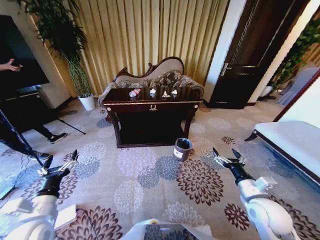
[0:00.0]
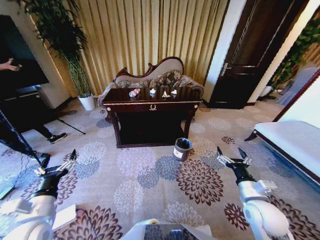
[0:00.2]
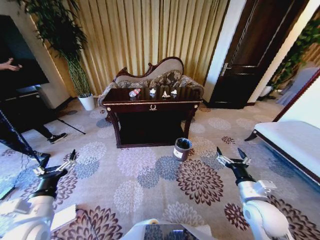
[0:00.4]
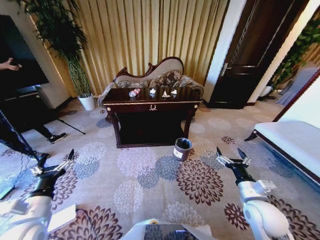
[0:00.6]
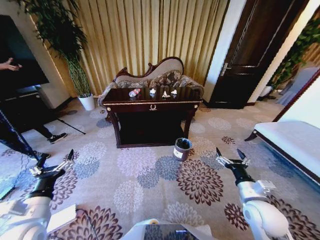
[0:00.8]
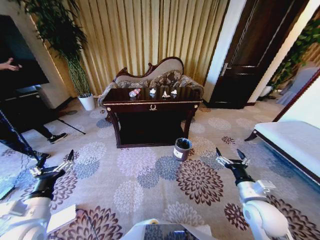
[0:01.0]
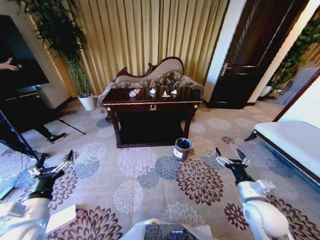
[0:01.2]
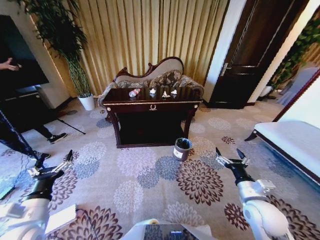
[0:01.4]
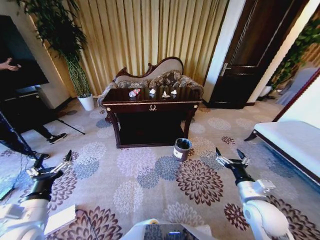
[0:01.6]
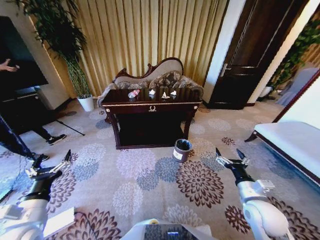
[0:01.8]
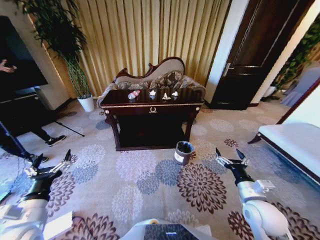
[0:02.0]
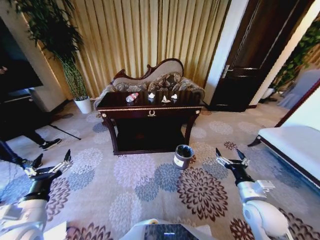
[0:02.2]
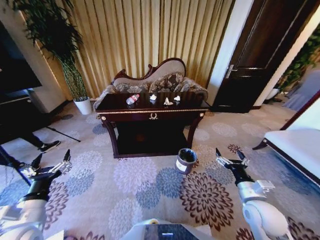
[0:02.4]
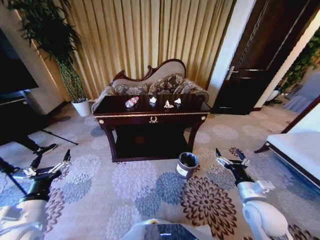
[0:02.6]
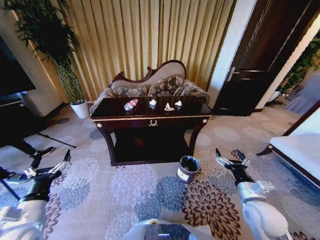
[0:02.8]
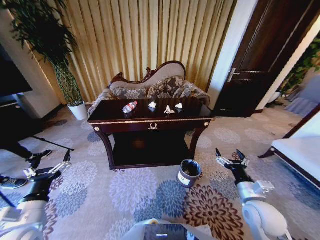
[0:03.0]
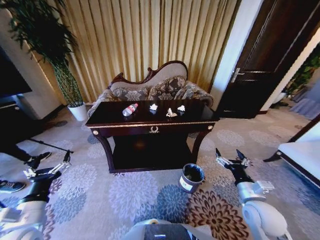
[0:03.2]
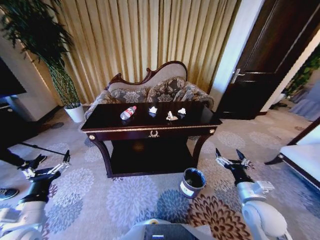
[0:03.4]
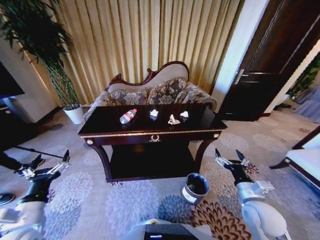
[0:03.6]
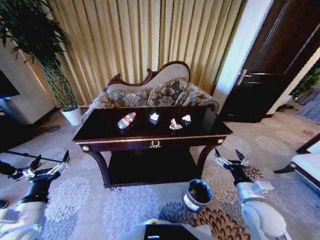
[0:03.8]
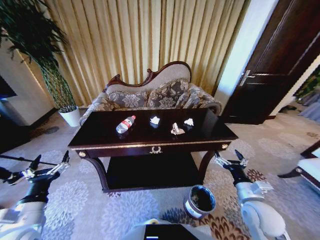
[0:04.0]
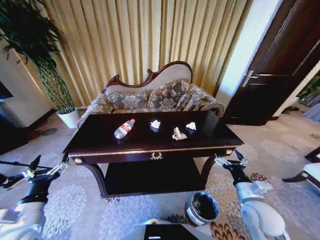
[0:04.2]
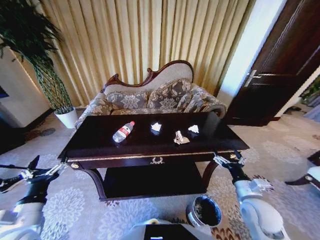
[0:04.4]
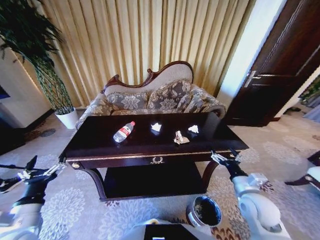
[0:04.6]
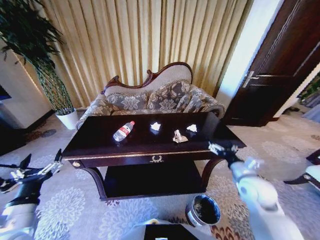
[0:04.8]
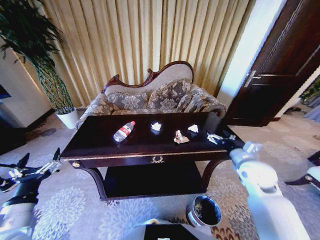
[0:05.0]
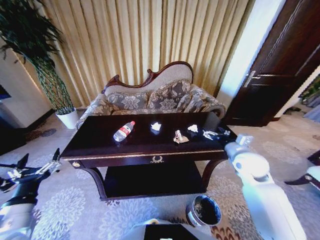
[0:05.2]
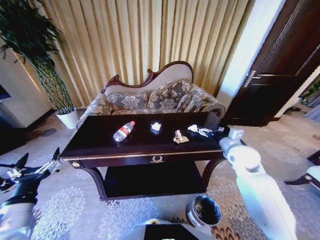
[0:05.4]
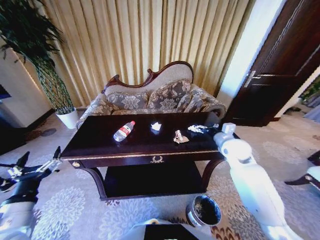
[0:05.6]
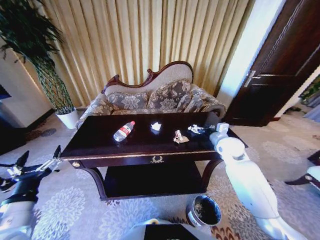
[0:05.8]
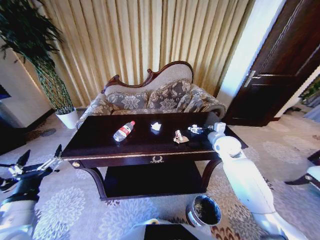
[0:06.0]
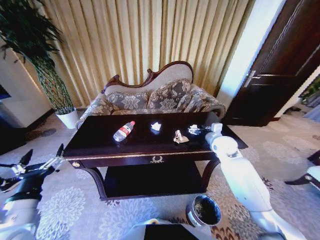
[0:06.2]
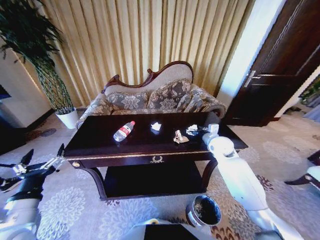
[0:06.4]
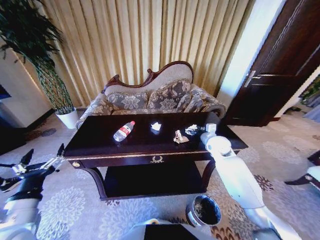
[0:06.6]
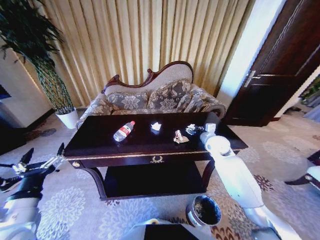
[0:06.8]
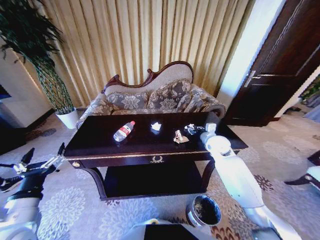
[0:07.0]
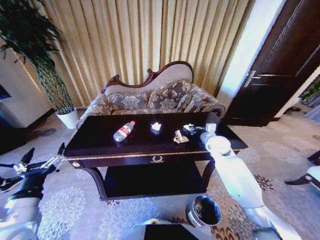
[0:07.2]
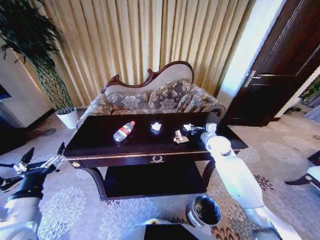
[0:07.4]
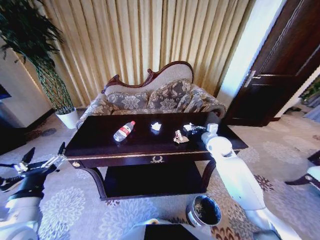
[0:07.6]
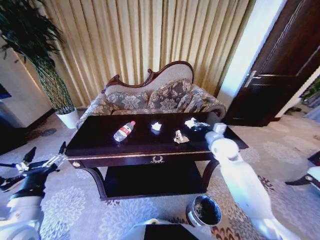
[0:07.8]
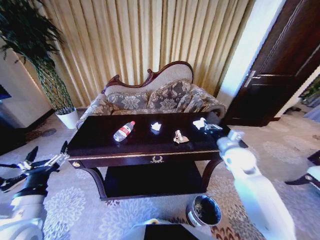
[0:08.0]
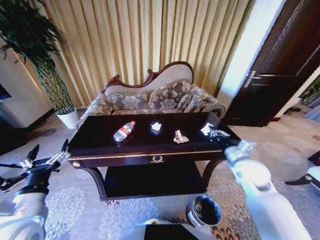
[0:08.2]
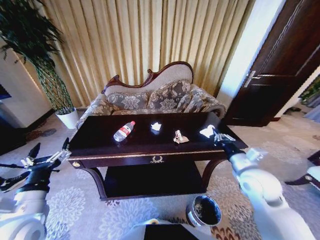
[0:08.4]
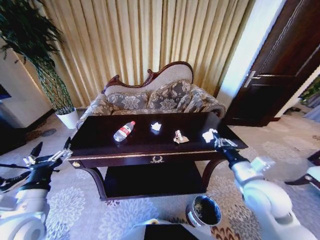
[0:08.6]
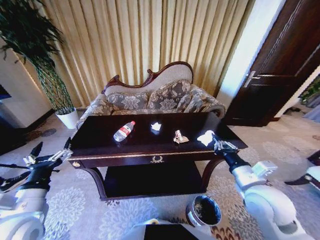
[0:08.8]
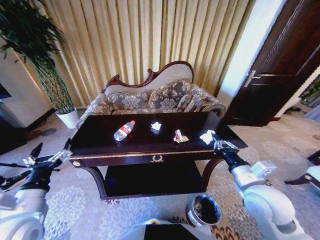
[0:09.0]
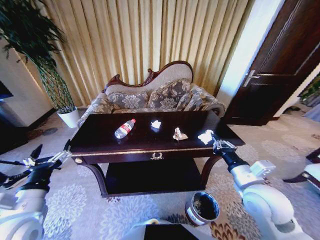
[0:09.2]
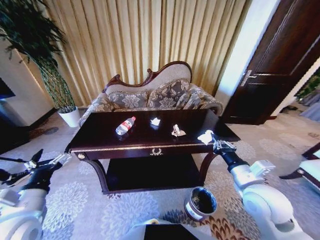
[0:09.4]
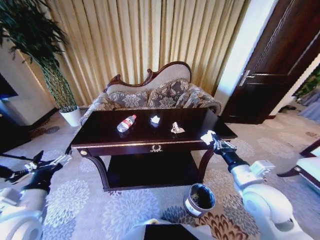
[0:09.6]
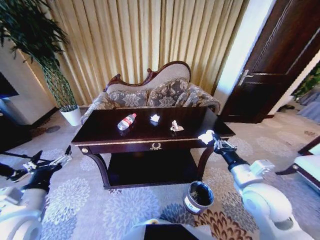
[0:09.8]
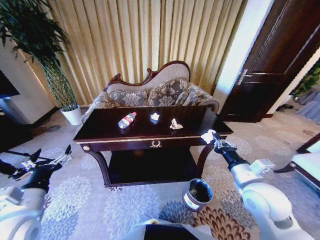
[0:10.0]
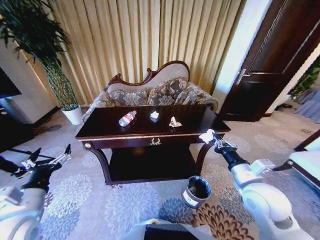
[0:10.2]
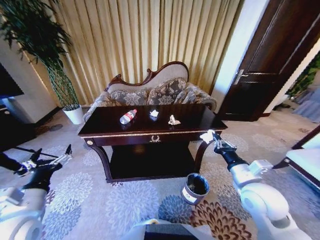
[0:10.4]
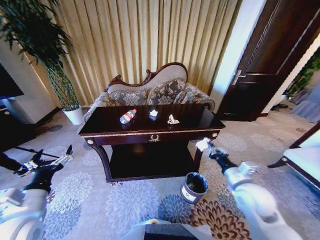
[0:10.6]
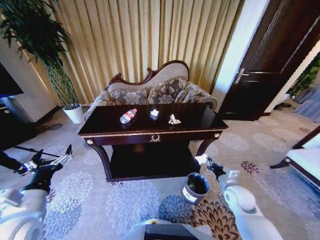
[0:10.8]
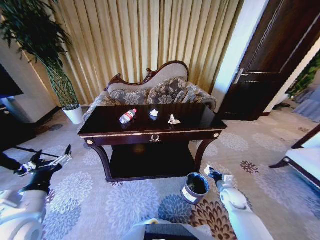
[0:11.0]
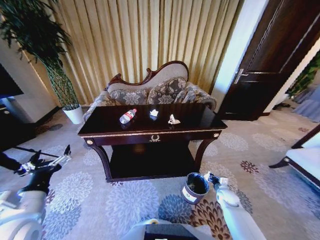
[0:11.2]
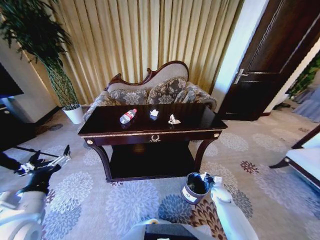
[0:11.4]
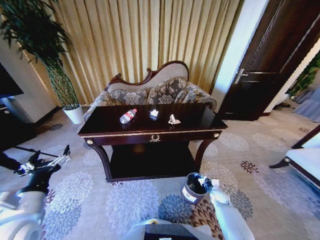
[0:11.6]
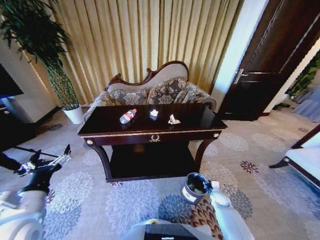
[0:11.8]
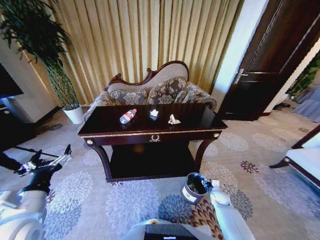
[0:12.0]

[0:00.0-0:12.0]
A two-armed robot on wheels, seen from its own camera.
Task of the whole recording: Move to the front of the table and place the trash on the table into the trash bin.
0:04.4 to 0:06.0: The right gripper goes approximately 25 cm forward.
0:06.0 to 0:07.6: The right gripper closes.
0:07.6 to 0:09.0: The right gripper travels backward by approximately 25 cm.
0:10.4 to 0:12.0: The right gripper goes roughly 35 cm downward, and opens.

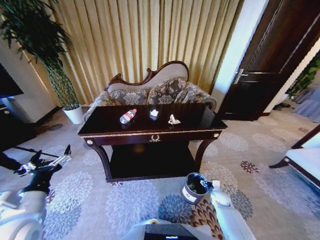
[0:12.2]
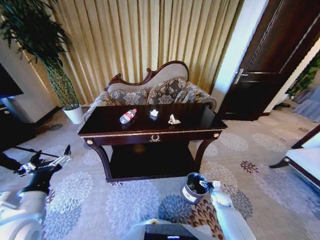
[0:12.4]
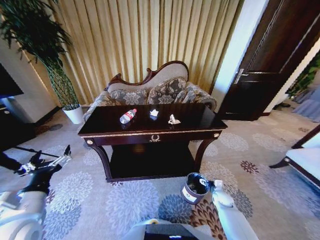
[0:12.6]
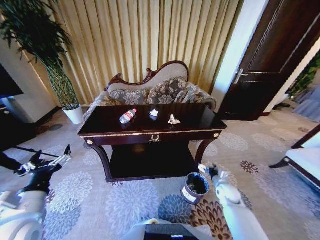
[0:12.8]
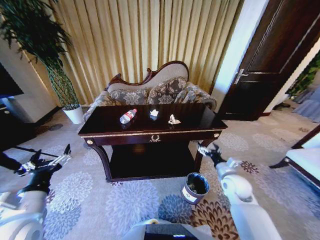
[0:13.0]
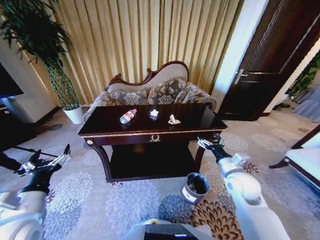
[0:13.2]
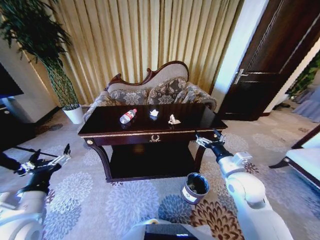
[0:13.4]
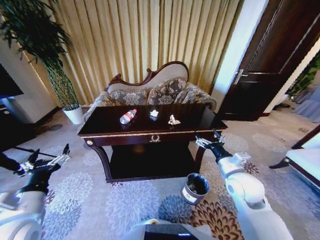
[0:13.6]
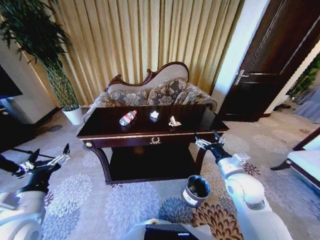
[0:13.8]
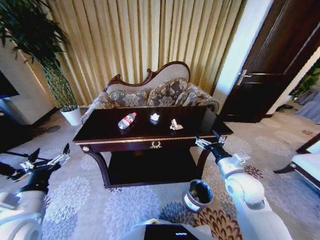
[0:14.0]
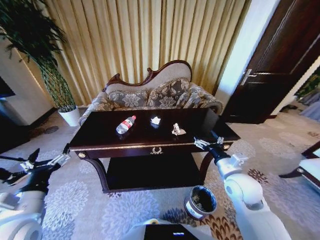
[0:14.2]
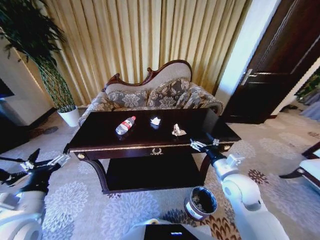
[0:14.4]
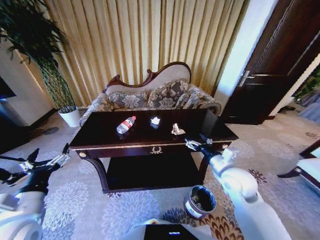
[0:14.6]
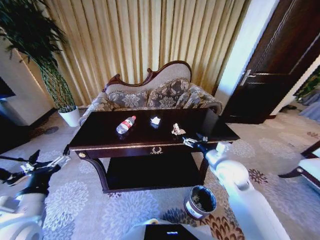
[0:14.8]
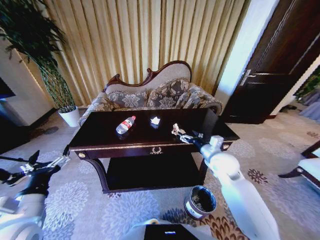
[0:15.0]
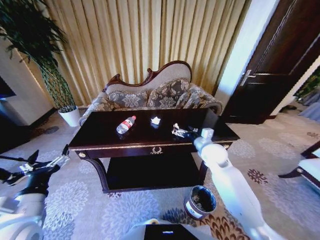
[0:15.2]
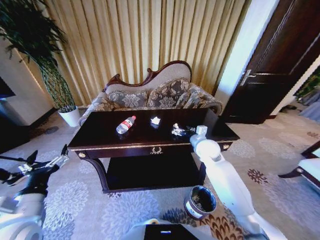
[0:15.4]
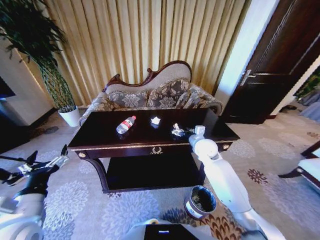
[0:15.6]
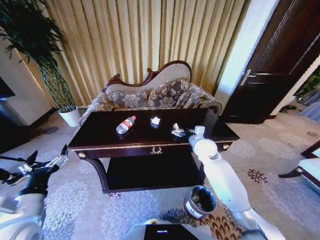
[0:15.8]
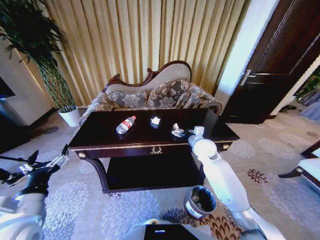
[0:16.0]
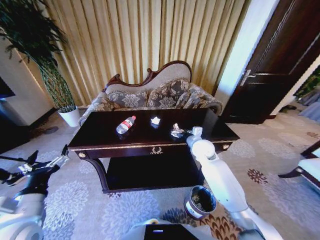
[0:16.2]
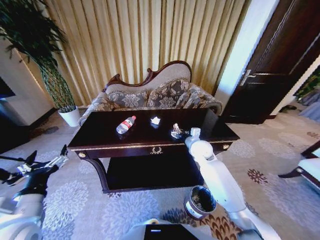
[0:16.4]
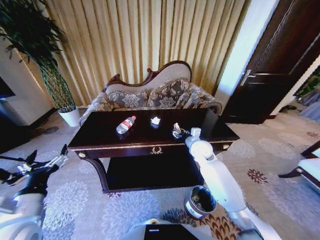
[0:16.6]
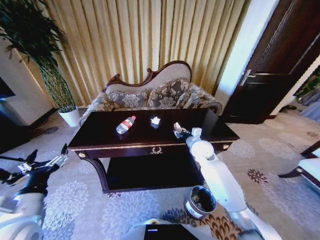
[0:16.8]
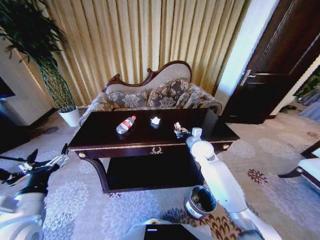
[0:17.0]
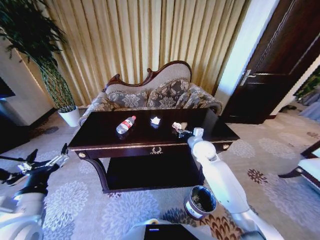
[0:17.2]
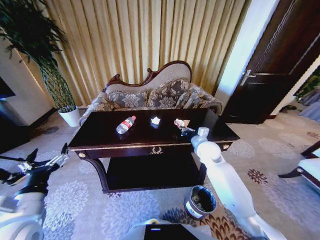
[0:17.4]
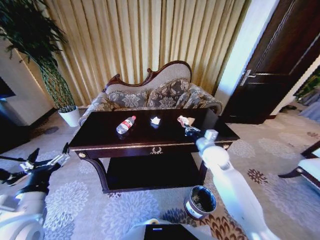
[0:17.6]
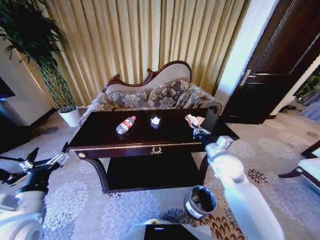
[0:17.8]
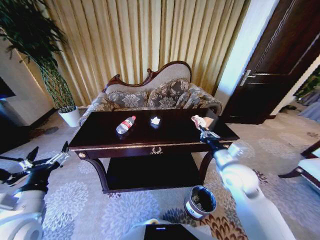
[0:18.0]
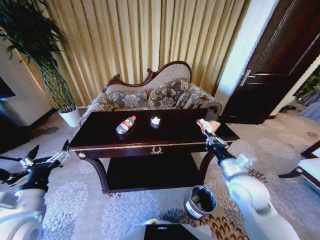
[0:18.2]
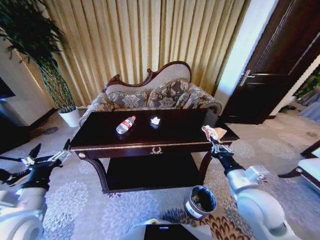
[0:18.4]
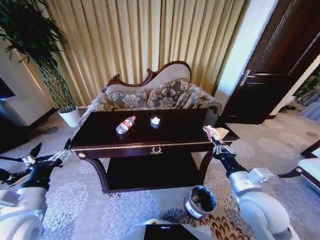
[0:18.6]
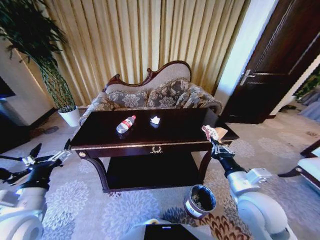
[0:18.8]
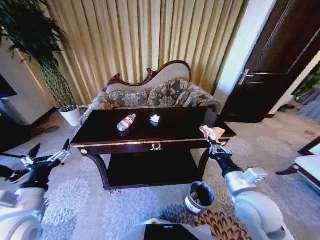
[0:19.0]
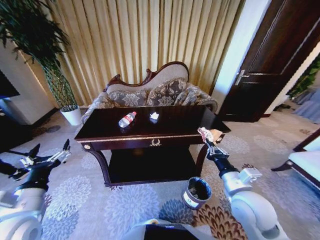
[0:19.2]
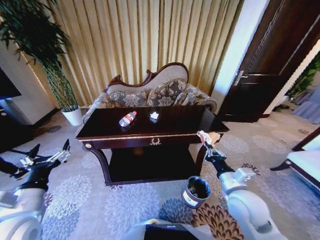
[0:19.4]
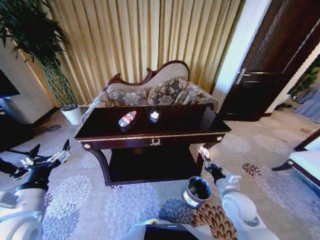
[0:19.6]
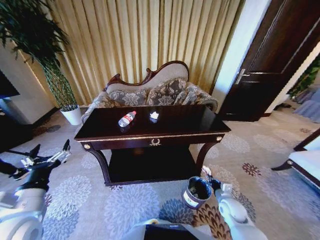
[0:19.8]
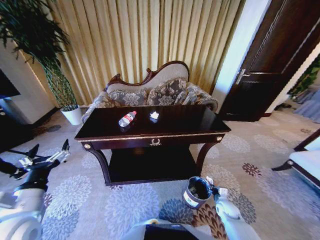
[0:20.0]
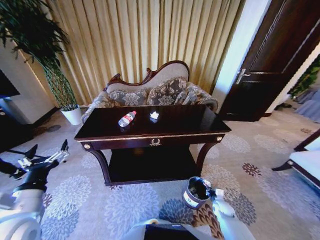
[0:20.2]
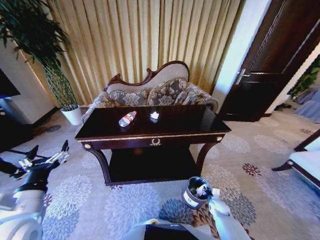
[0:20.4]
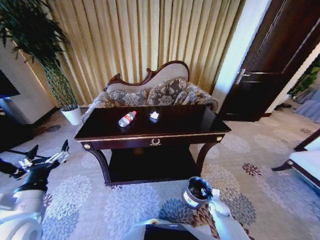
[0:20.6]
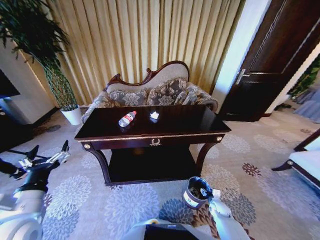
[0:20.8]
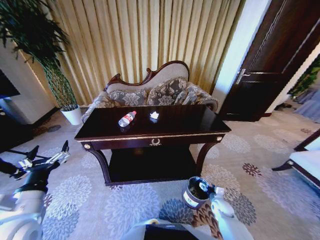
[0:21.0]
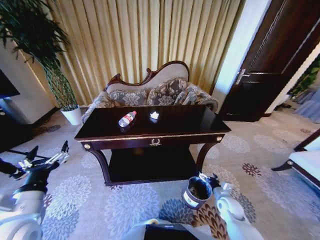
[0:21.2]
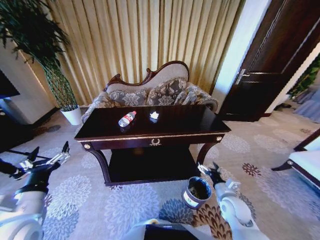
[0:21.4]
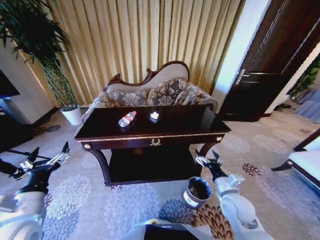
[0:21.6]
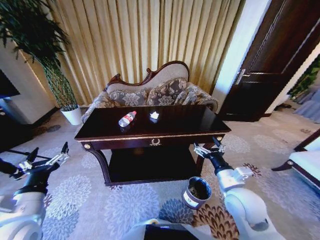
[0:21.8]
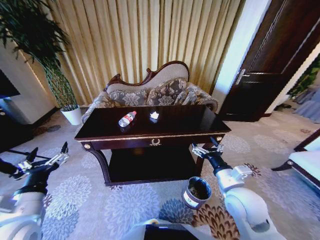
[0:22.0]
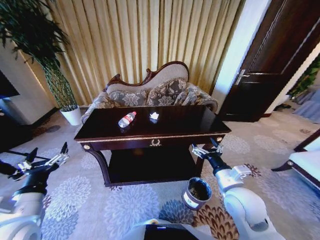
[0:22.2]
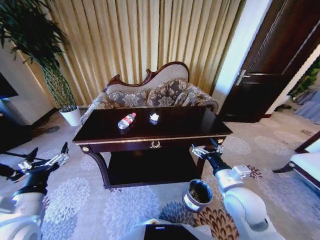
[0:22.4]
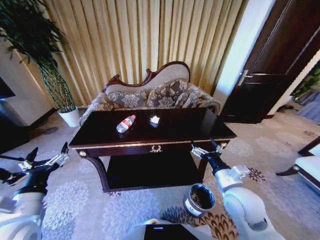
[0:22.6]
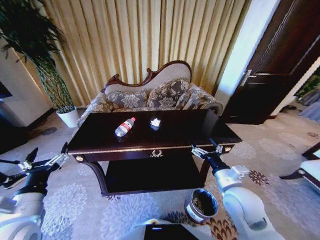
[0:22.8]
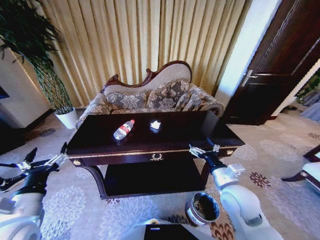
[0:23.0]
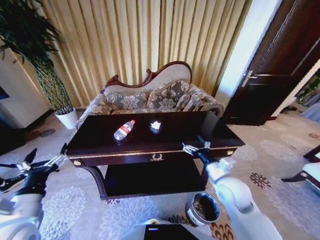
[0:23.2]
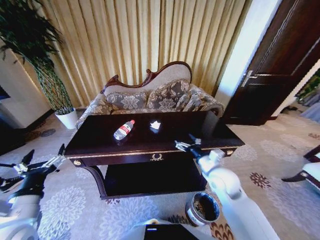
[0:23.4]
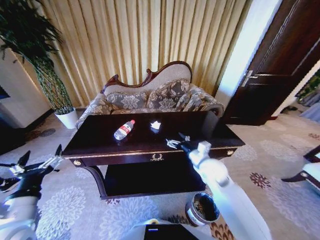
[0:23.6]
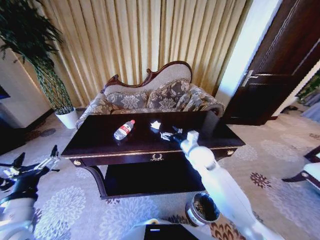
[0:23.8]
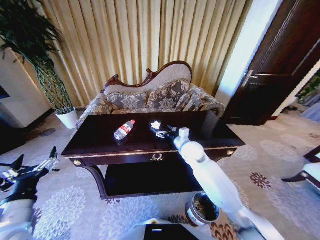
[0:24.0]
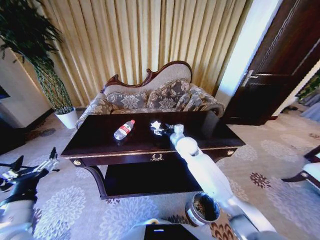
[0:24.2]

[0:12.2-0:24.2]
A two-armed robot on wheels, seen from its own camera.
Task of the whole recording: Move to the front of the table and place the trash on the table into the trash bin.
0:12.2 to 0:13.8: The right gripper travels upward by some 35 cm.
0:13.8 to 0:15.2: The right gripper travels forward by roughly 15 cm.
0:15.2 to 0:16.6: The right gripper moves approximately 5 cm, and closes.
0:16.6 to 0:18.2: The right gripper moves backward, some 20 cm, and closes up.
0:18.2 to 0:19.8: The right gripper shifts roughly 25 cm downward.
0:19.8 to 0:21.2: The right gripper travels downward and back again, approximately 15 cm each way, and opens.
0:21.2 to 0:22.6: The right gripper heads upward and to the left, covering about 25 cm.
0:22.6 to 0:24.2: The right gripper moves forward and to the left, about 25 cm.
